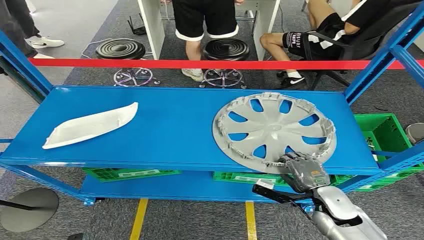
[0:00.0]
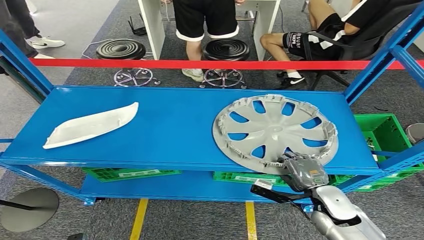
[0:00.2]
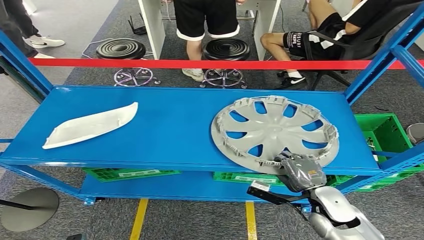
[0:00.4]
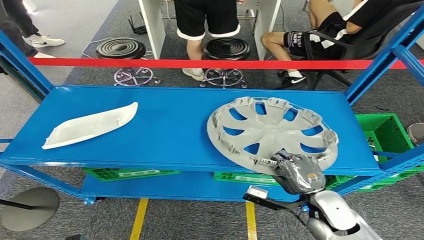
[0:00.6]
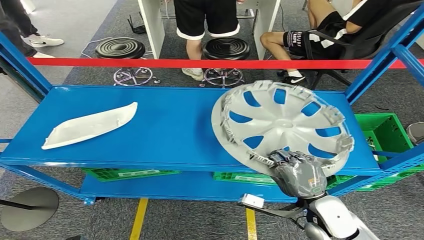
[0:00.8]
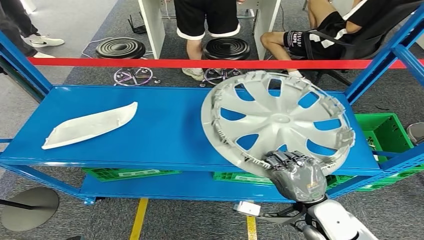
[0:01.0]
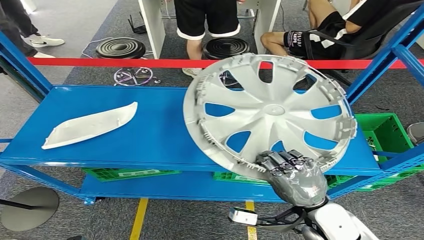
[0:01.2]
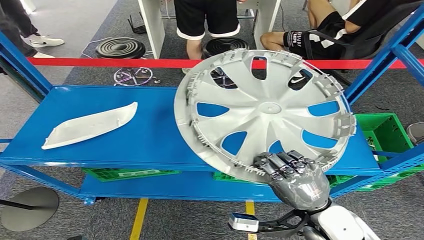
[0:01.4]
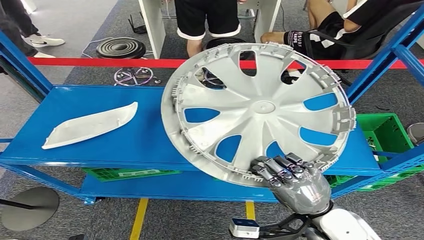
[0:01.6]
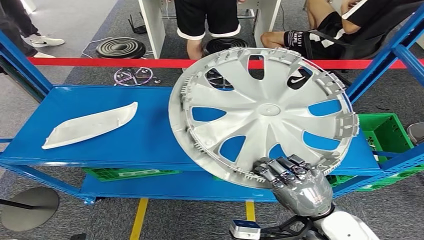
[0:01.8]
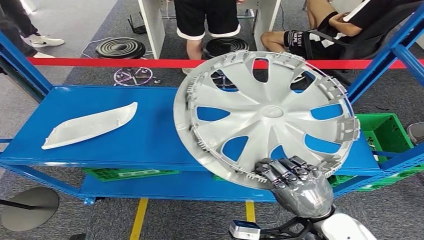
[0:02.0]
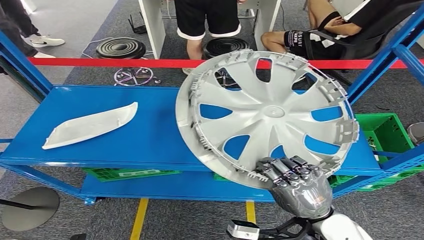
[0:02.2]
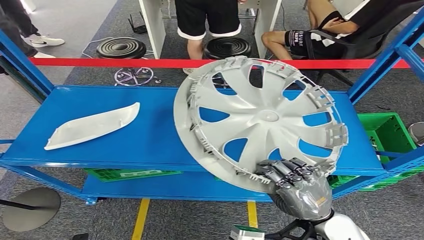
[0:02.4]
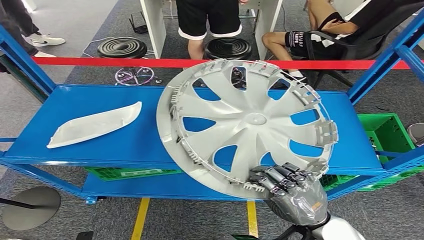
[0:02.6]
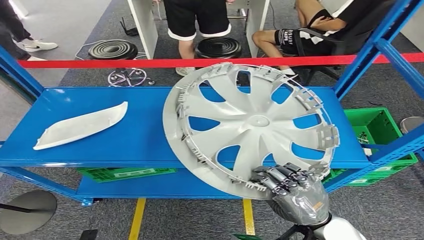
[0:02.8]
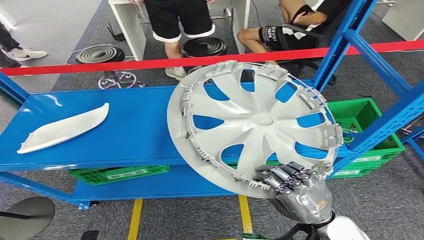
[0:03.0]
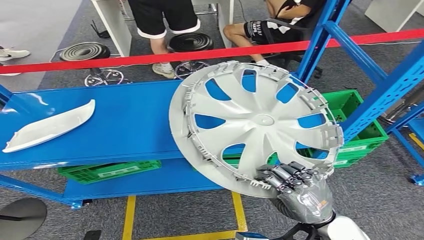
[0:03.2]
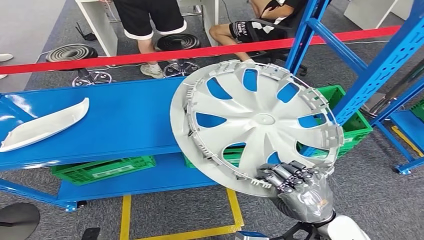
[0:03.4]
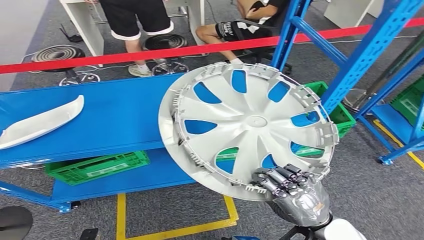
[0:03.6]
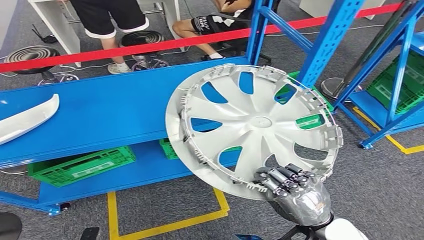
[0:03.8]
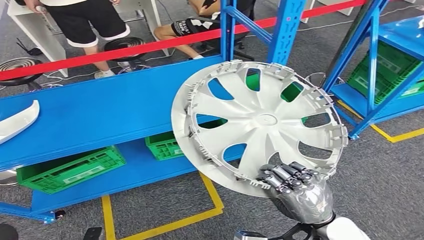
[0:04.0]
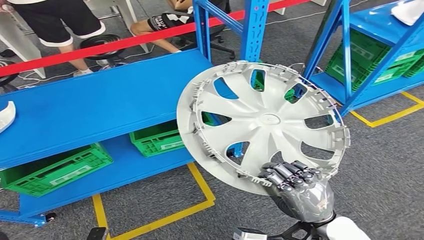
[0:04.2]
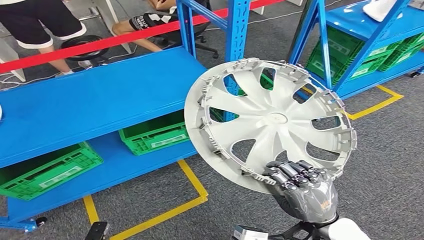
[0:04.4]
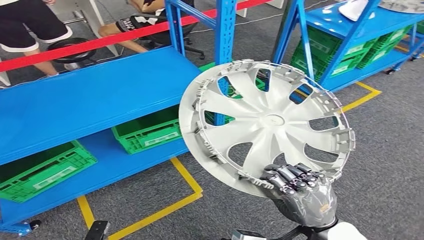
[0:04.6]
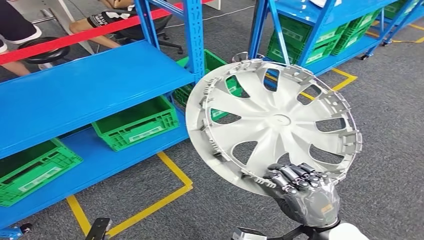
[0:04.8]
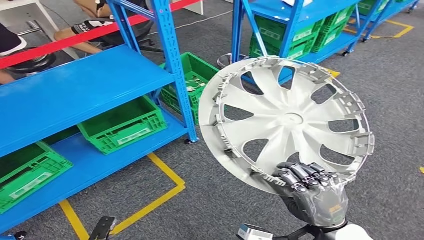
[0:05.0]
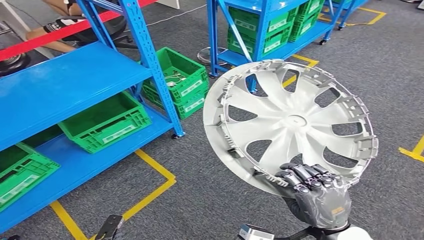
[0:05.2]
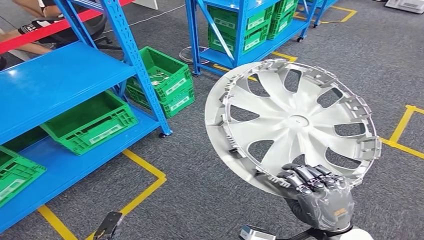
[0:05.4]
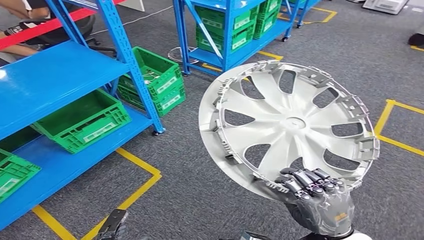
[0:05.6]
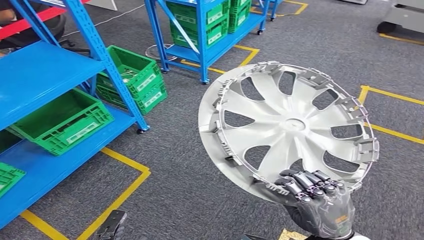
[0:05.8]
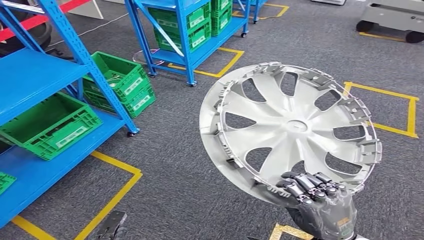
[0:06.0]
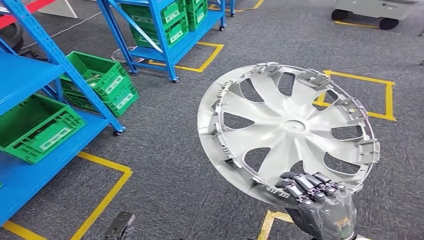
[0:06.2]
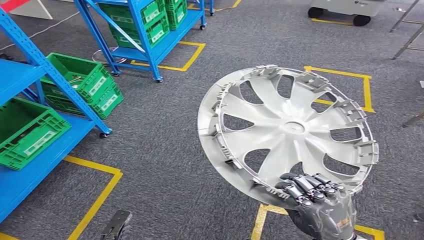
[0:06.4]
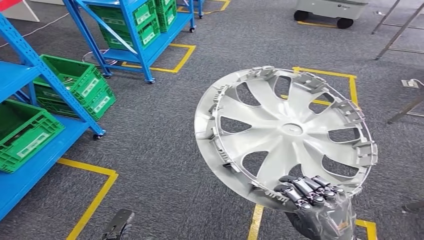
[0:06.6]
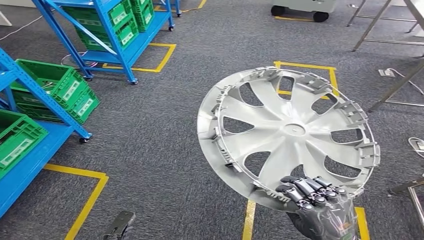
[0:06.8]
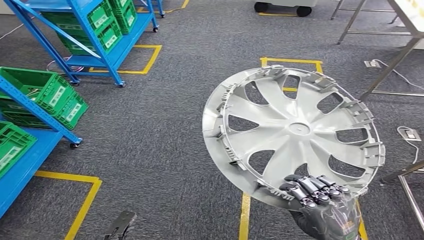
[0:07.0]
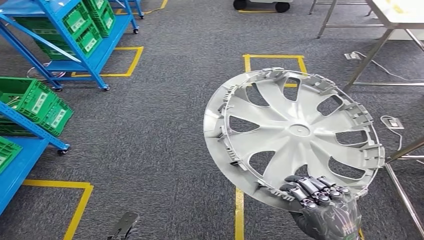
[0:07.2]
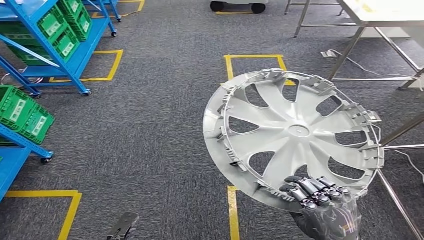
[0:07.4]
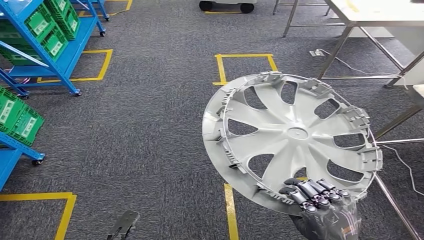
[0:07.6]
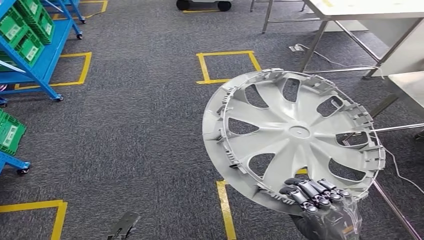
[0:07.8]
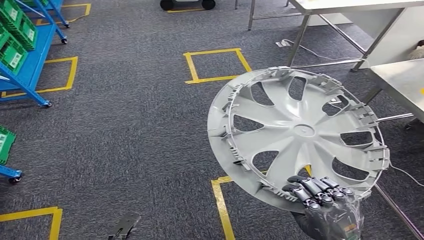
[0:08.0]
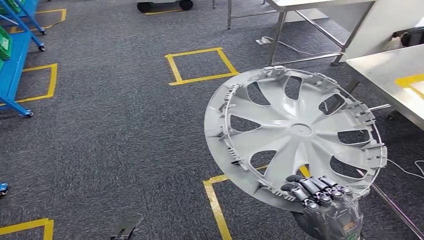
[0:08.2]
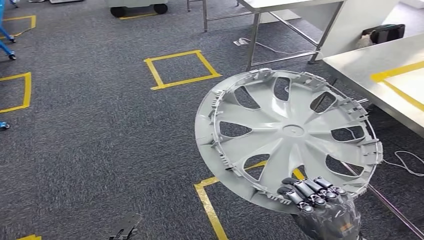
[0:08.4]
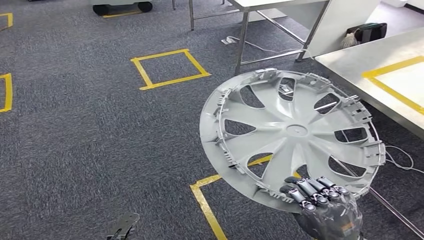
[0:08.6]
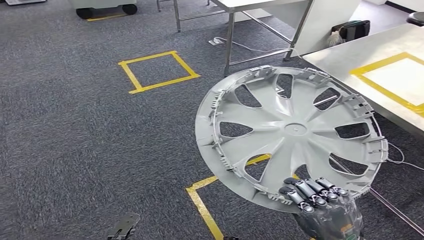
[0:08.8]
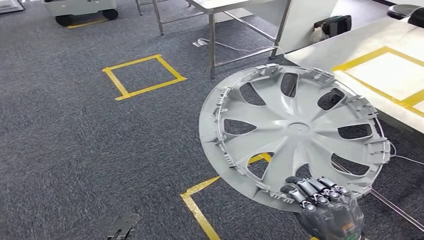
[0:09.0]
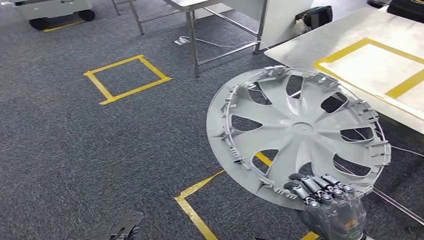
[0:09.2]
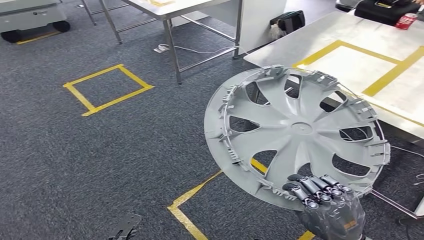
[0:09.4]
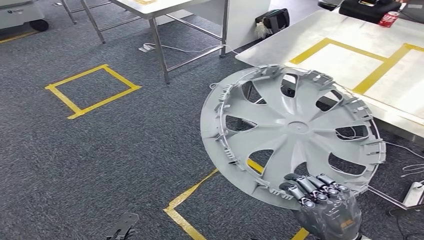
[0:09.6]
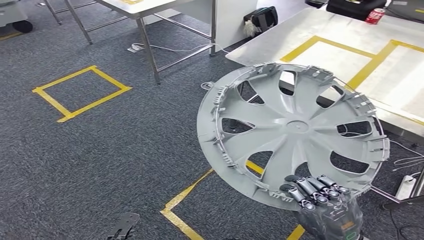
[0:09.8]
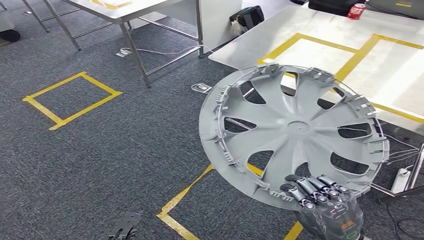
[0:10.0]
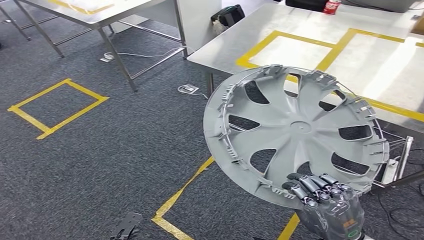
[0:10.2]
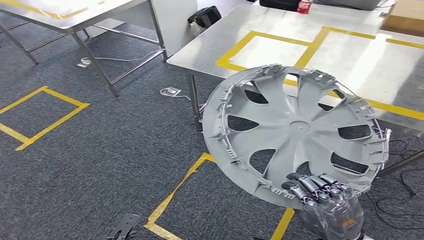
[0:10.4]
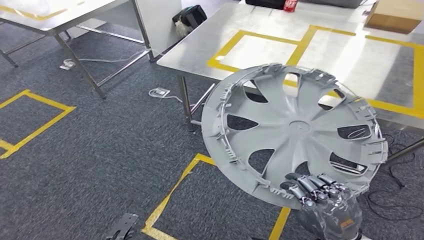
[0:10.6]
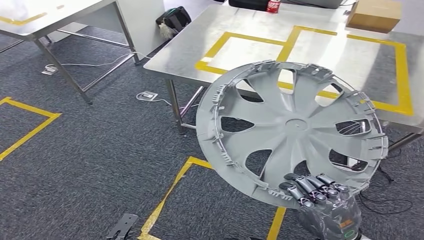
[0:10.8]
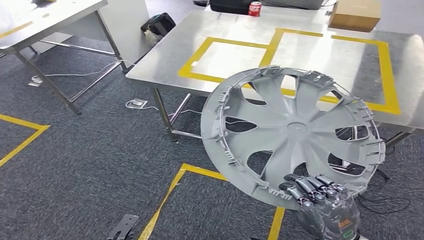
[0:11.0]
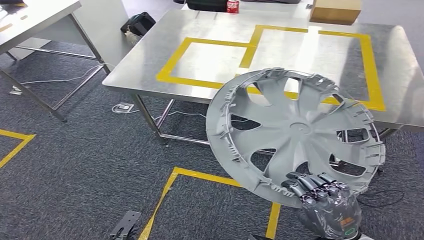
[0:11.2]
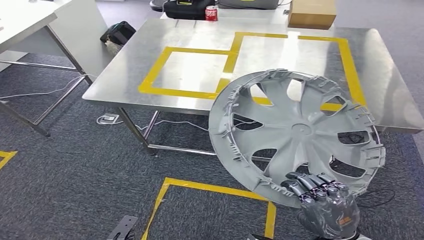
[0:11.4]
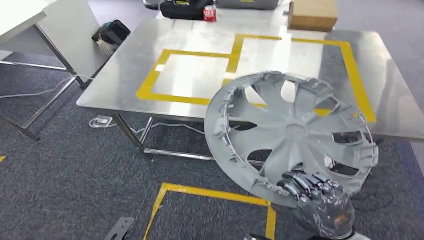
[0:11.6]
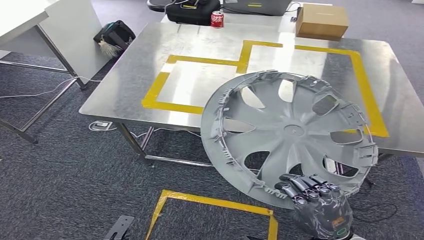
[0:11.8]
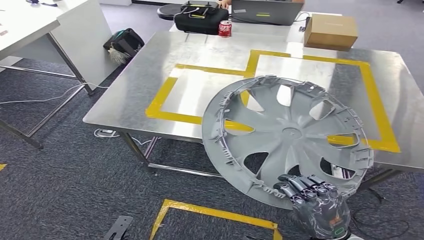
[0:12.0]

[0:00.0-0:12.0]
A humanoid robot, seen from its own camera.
Step, 0:00.0 to 0:02.0: Pick up the small component from the shelf.

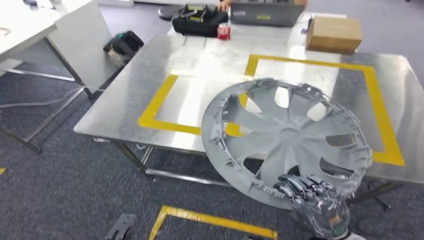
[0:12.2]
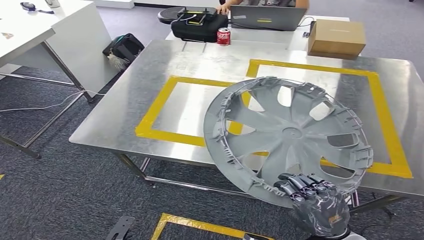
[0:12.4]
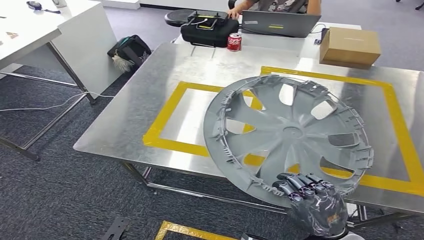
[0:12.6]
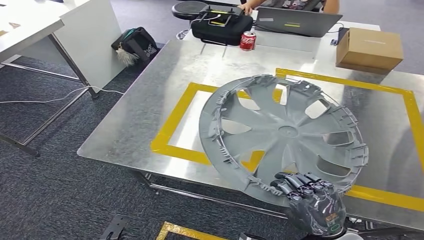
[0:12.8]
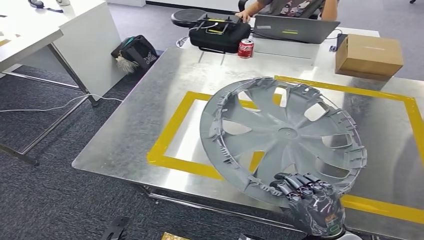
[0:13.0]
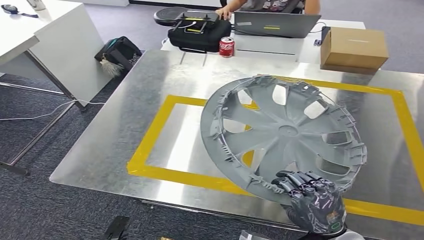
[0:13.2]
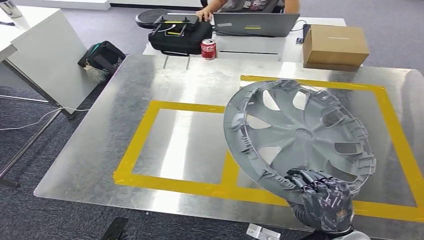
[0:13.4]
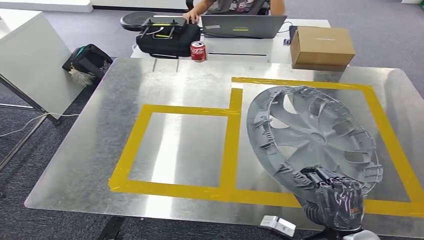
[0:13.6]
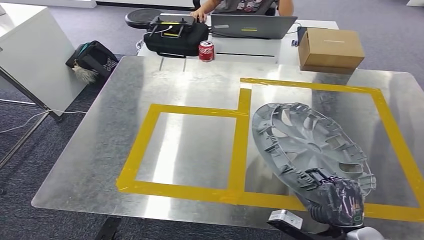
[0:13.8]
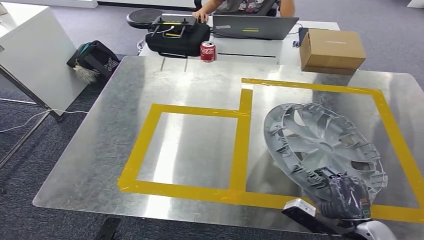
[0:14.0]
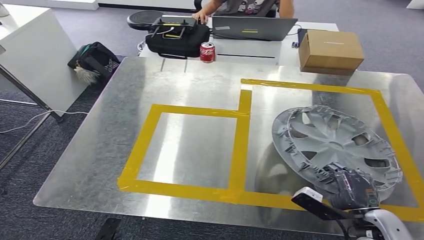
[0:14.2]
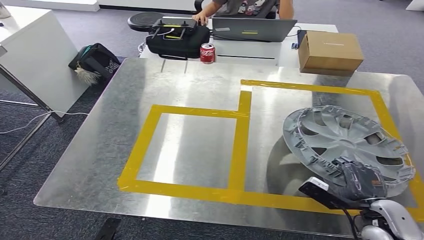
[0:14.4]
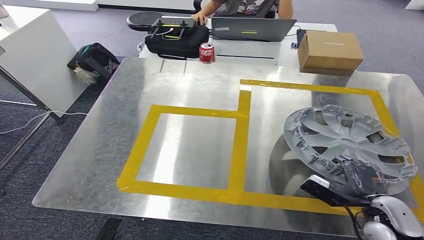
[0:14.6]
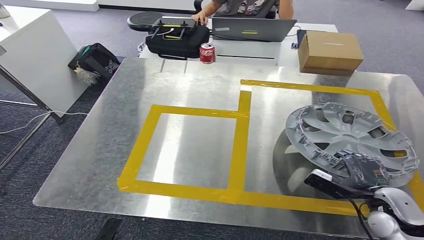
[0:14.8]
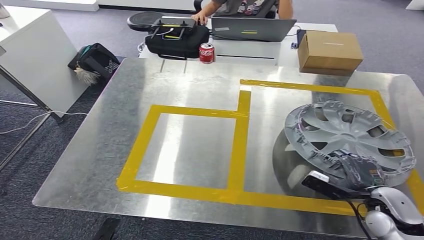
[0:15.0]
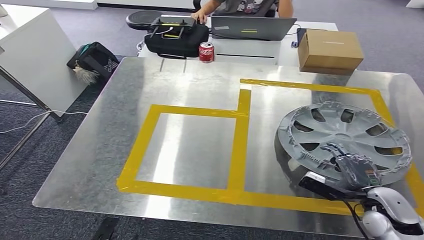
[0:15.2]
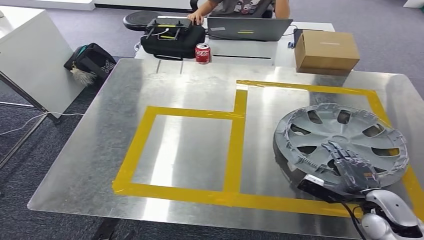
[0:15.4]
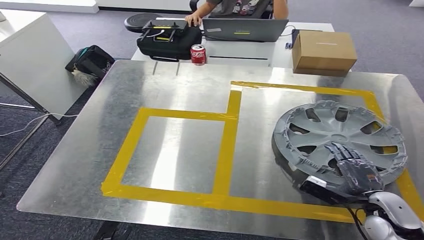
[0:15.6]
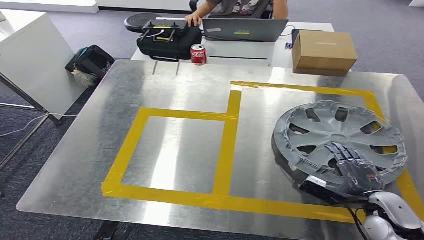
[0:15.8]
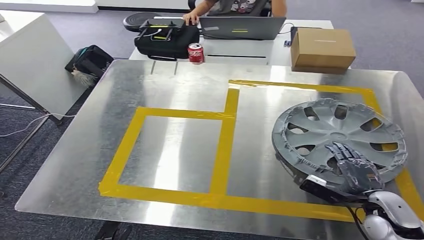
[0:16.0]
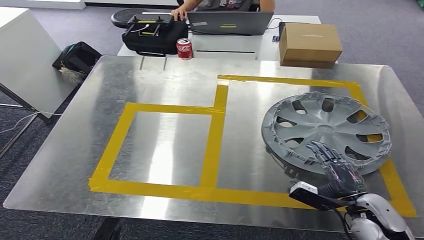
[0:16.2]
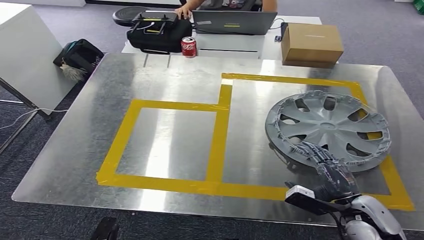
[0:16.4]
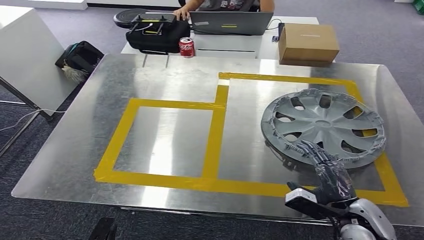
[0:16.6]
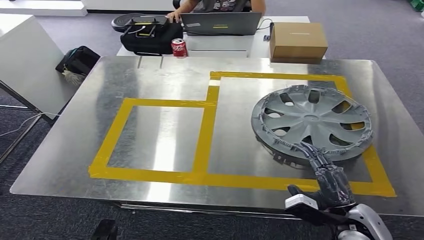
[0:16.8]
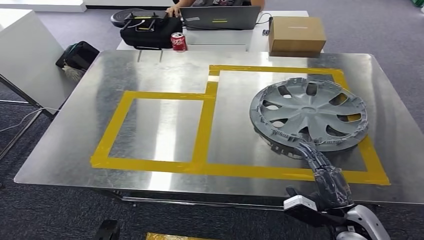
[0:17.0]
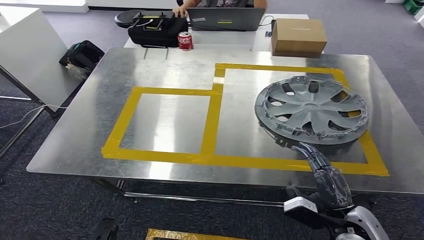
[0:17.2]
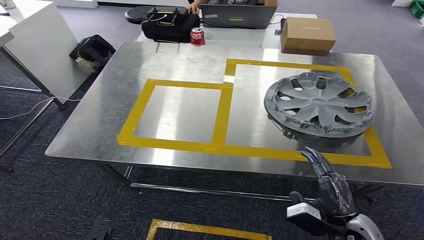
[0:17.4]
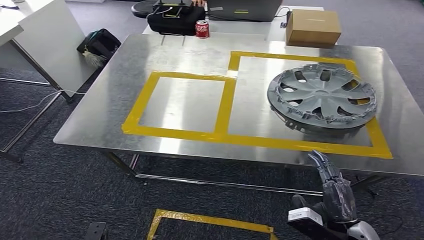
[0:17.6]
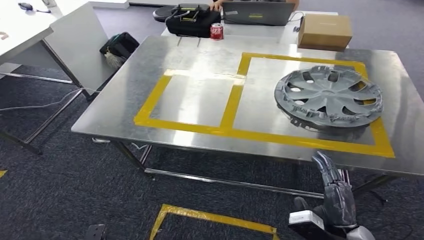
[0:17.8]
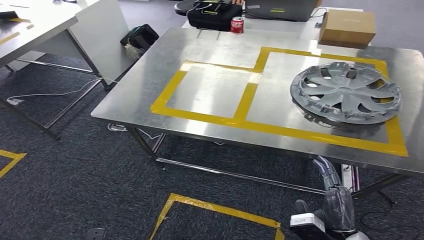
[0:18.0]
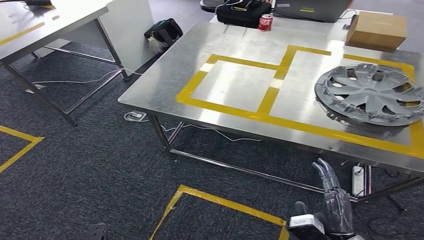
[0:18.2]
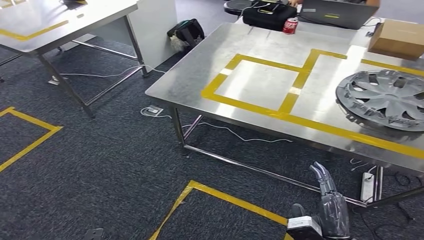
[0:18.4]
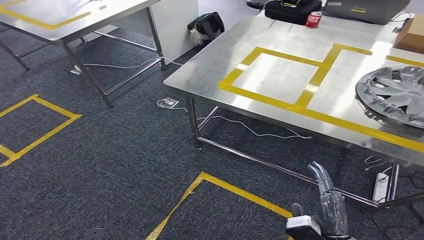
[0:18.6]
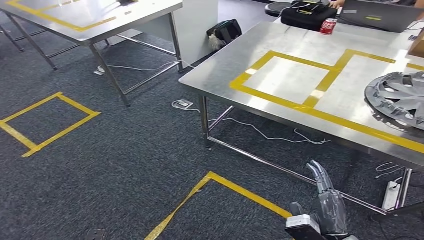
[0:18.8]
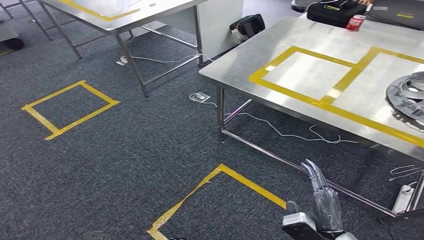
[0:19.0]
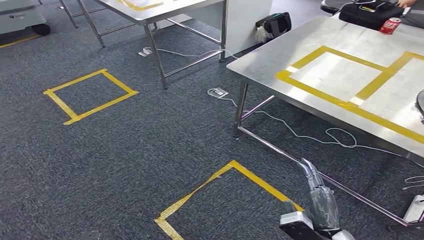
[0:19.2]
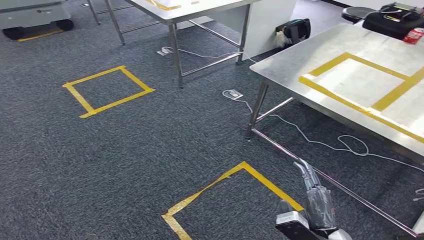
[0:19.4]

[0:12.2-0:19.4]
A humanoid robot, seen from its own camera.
Step, 0:12.6 to 0:18.0: Insert the small component into the corresponding slot on the workbench.
